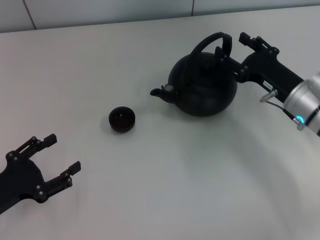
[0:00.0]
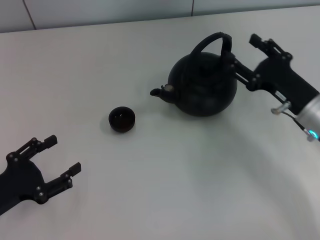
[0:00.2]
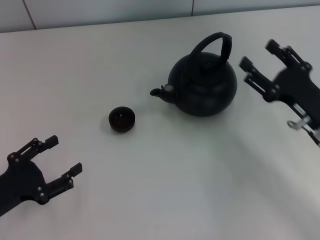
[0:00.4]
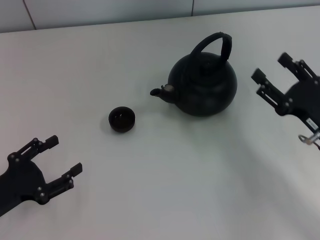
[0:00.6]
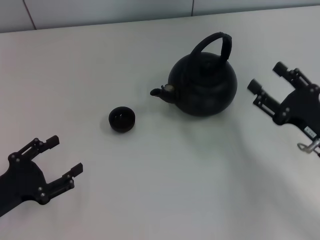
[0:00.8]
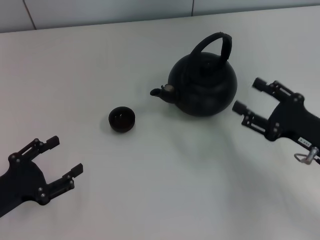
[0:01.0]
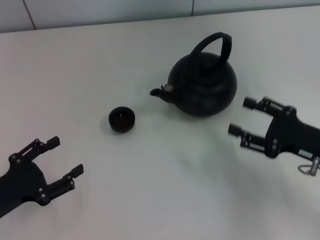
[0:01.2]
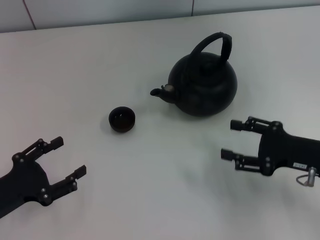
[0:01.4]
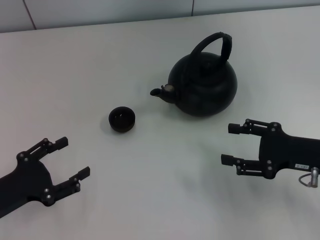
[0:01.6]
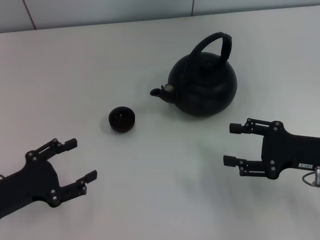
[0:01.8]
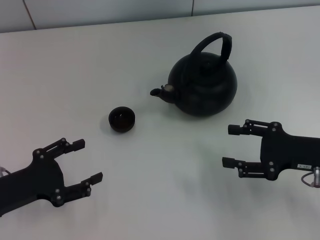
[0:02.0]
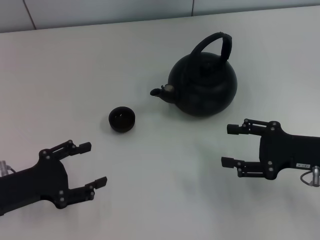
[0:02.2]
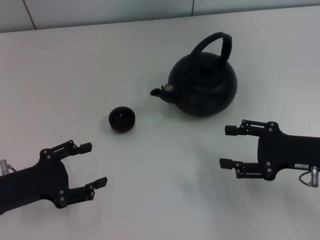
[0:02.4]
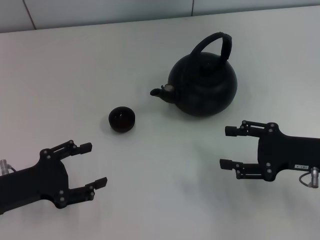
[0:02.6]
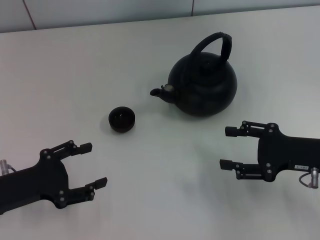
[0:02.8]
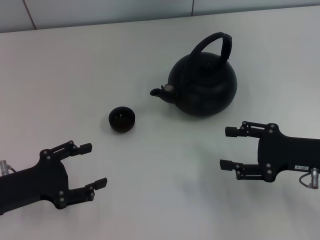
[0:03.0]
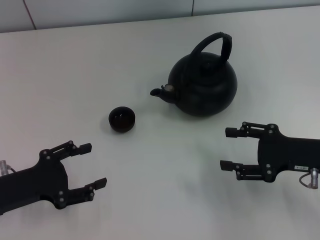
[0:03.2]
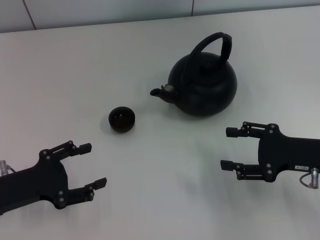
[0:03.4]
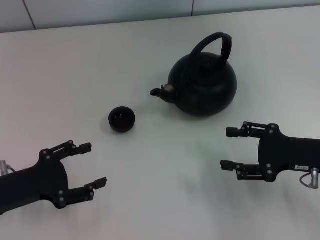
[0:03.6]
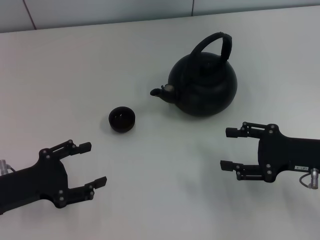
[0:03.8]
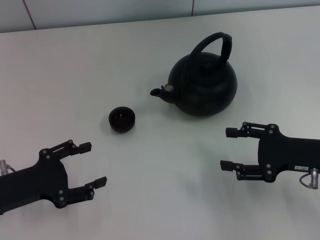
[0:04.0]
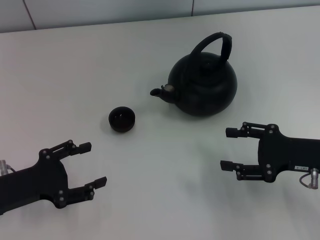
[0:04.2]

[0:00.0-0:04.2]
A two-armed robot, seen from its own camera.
Task of the whole recording: Grasp the handle of the teapot with one hand and pour tea into the teacup.
0:00.0 to 0:01.4: The right gripper moves backward, about 10 cm.
0:01.4 to 0:02.8: There are only small adjustments of the grippers.
0:02.8 to 0:04.2: The two grippers keep their place.
